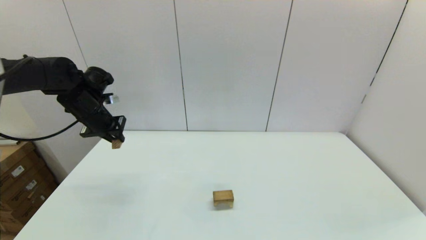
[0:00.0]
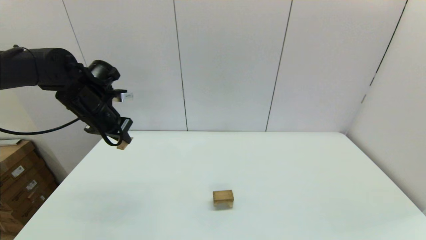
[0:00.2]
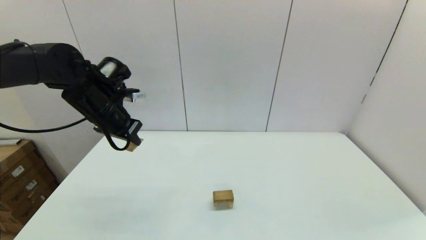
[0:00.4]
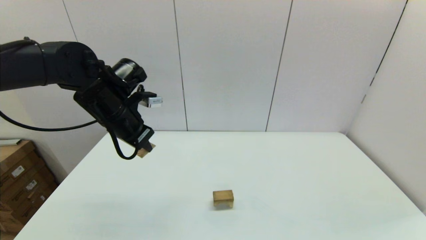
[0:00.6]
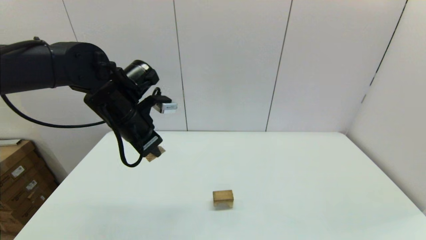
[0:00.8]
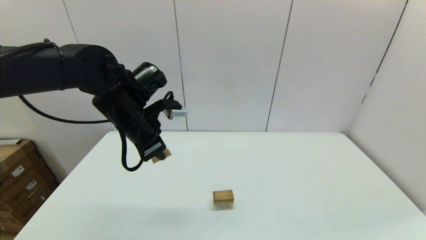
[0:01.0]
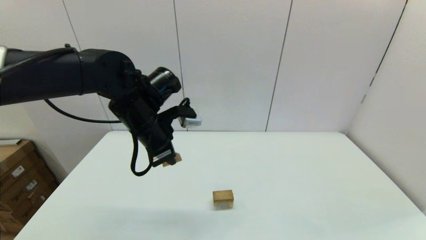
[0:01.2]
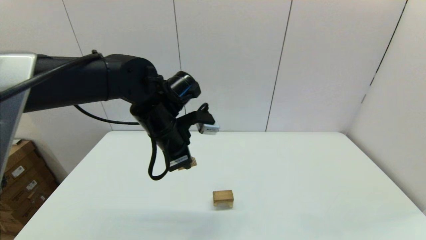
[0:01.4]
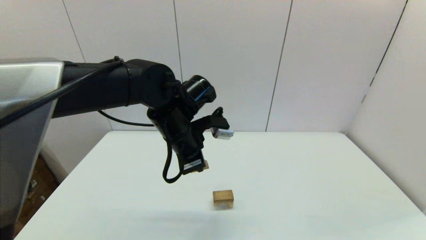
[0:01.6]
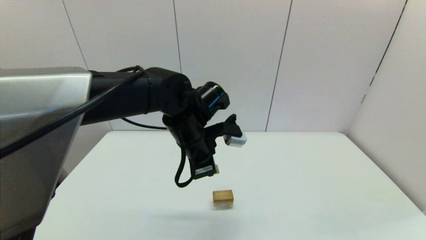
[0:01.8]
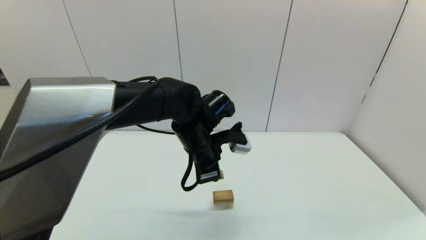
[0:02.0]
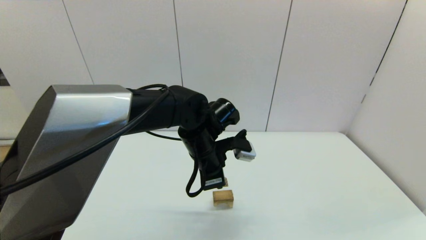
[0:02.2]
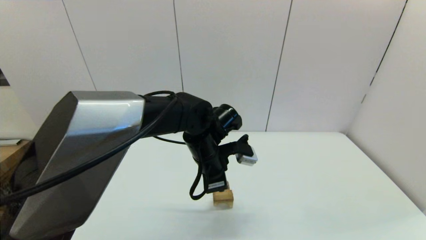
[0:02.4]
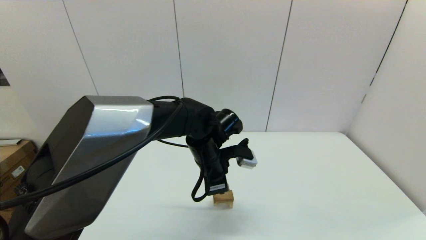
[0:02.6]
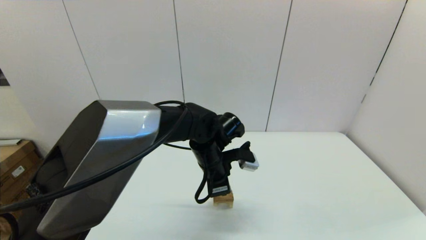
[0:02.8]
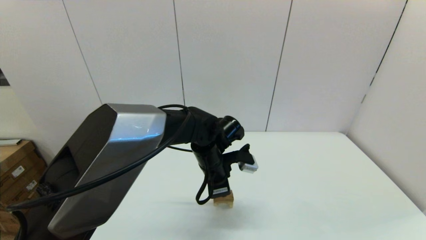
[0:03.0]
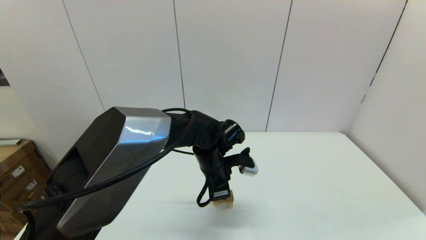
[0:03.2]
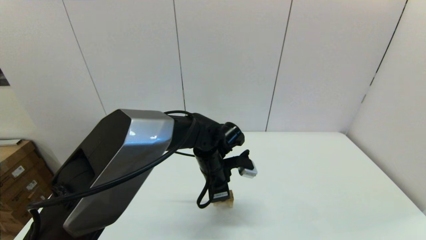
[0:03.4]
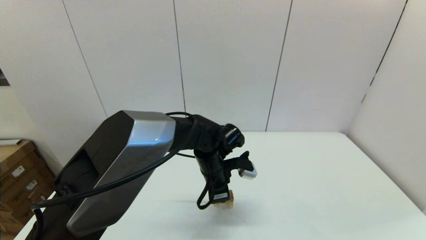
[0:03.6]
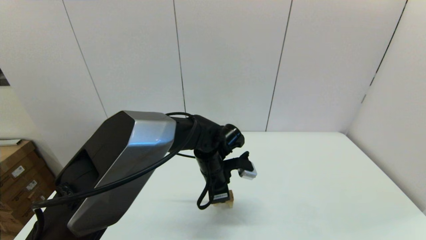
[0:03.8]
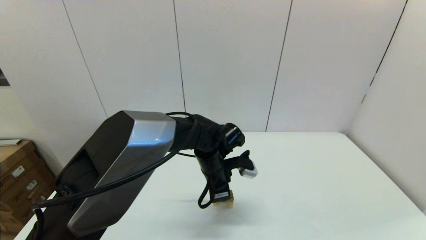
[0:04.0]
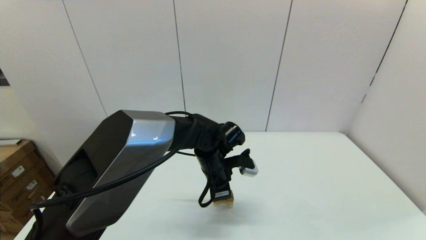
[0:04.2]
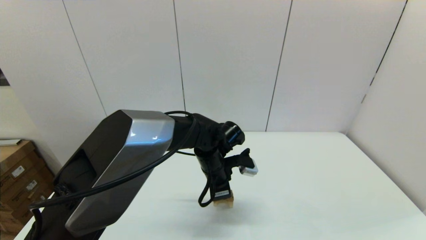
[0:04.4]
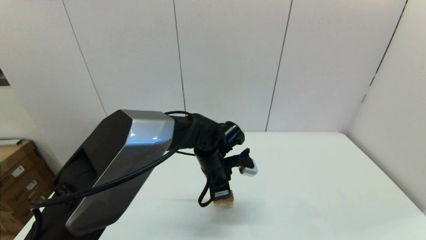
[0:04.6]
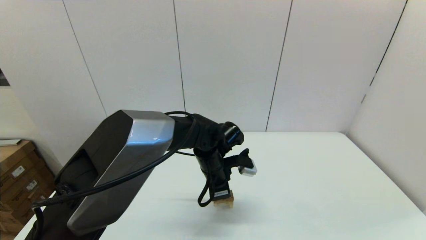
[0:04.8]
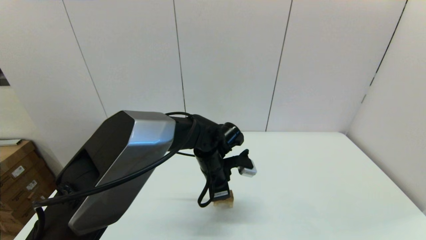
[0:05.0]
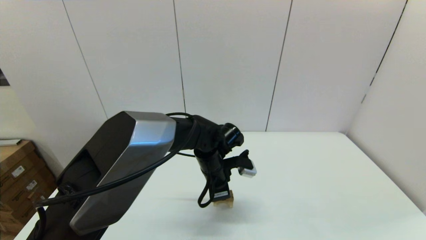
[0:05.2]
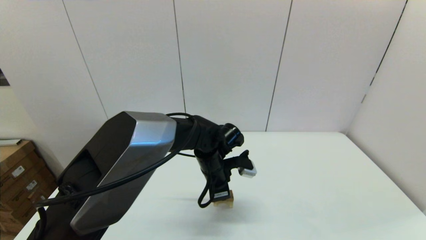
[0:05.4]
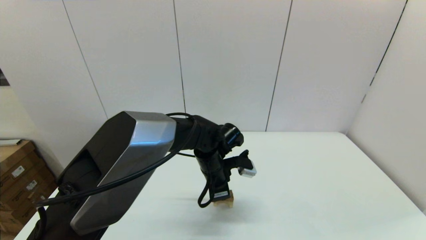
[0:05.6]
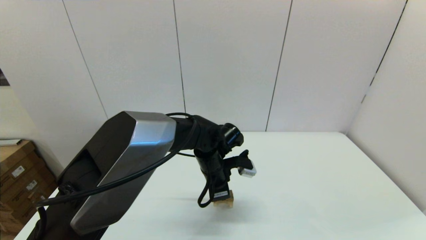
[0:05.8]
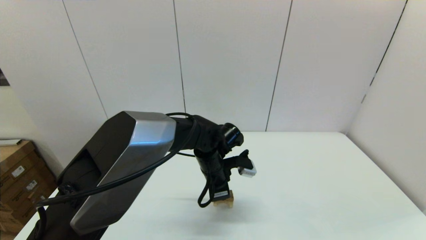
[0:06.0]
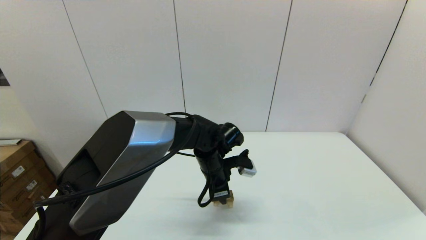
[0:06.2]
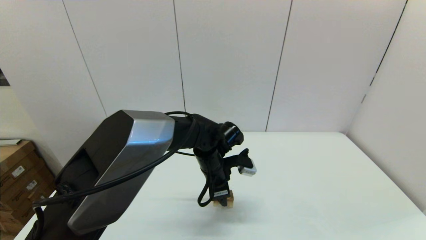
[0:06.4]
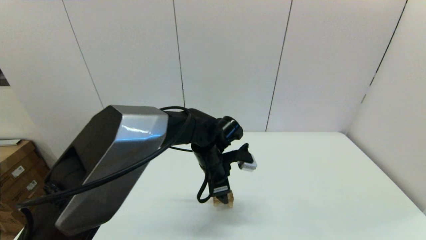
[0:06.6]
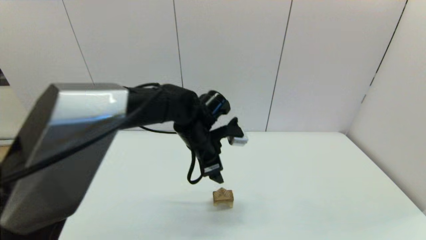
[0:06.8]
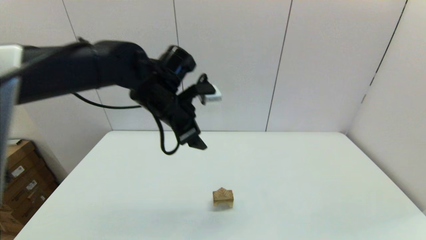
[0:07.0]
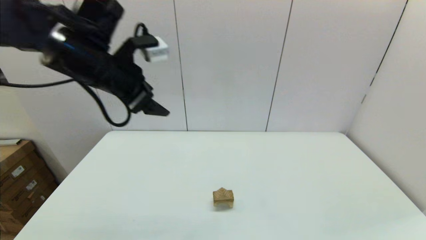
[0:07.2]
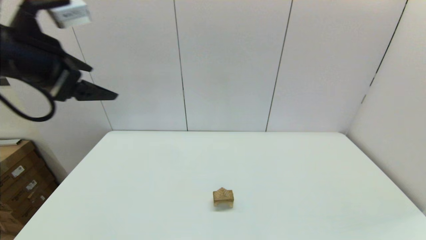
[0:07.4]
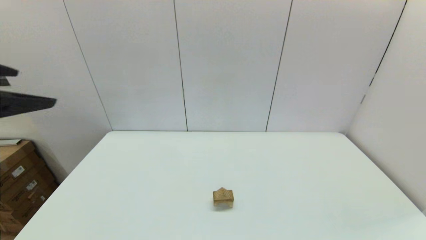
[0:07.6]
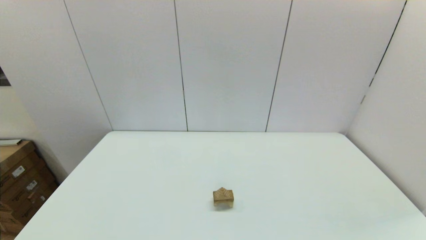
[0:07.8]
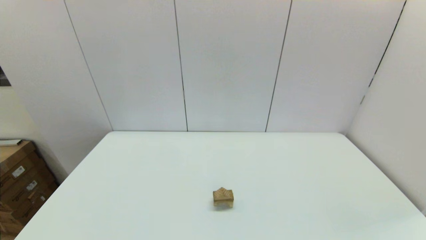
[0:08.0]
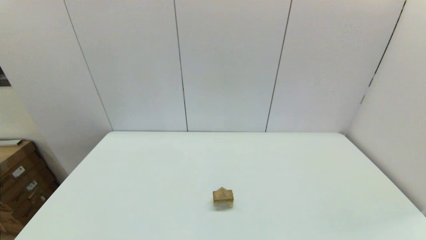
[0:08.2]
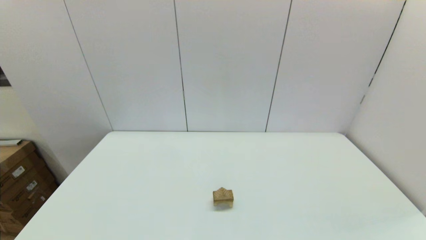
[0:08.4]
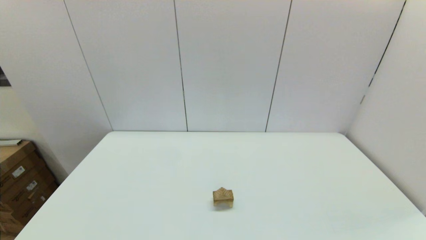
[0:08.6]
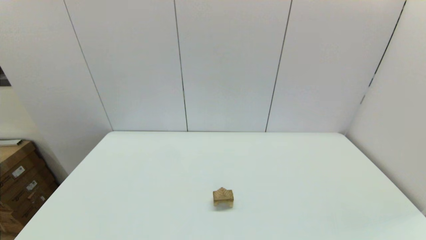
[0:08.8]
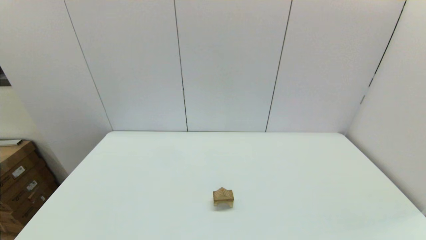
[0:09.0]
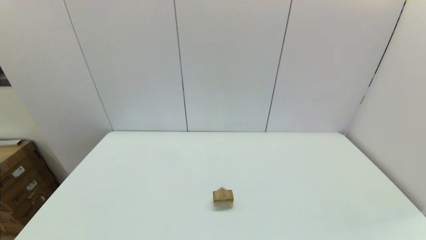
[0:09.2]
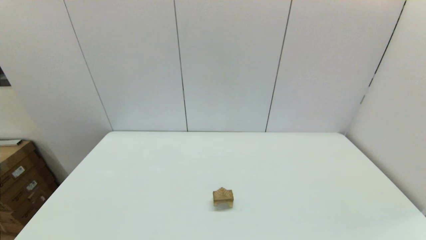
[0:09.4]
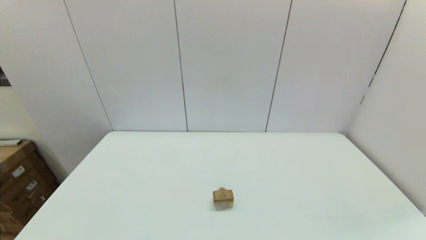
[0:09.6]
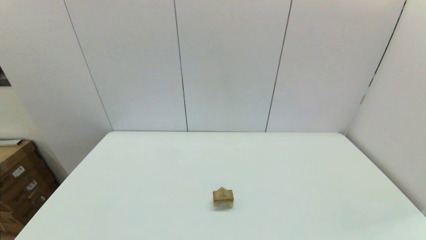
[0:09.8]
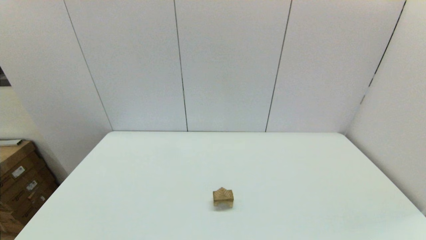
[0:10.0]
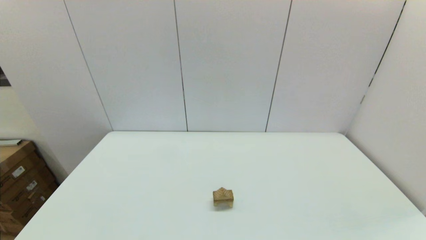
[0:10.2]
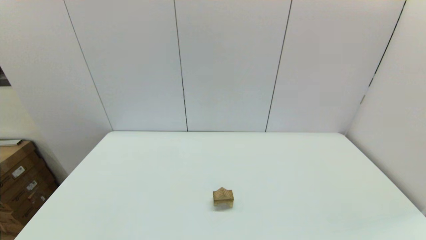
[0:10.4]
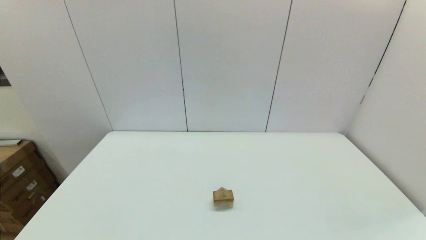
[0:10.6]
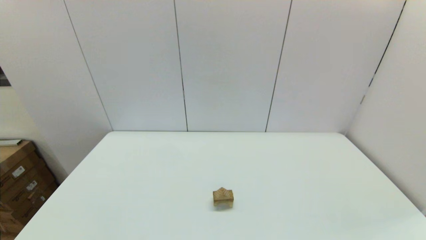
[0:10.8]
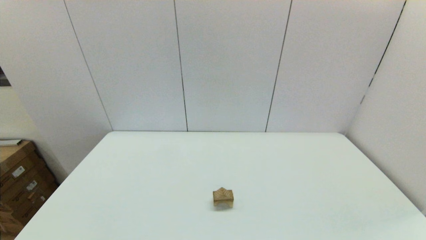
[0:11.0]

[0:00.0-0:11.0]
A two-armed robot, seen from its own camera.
Task of the whole recording: place the arched building blocks in the center of the table, set up the rectangular building blocks, and then set up the triangular building blocks.
0:00.0 to 0:01.6: The left gripper heads to the right, covering approximately 25 cm.
0:01.6 to 0:03.2: The left gripper heads downward and to the right, covering roughly 15 cm.
0:03.2 to 0:04.8: Neither gripper changes place.
0:04.8 to 0:06.2: The left gripper opens its fingers.
0:06.2 to 0:07.8: The left gripper travels to the left, backward and upward by roughly 50 cm, and opens its fingers.

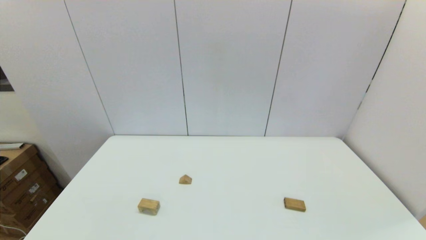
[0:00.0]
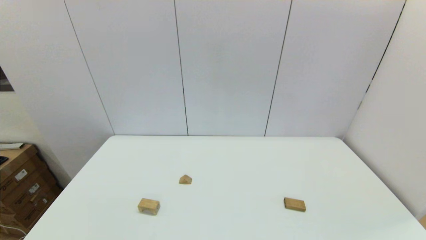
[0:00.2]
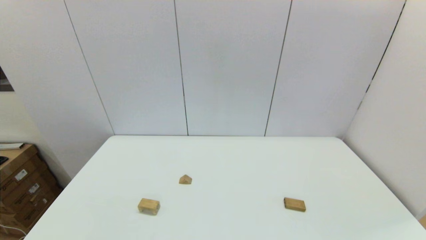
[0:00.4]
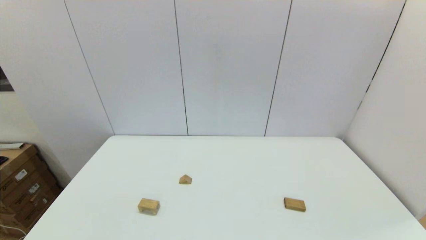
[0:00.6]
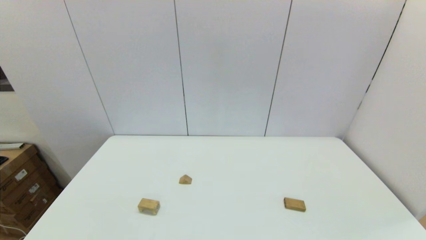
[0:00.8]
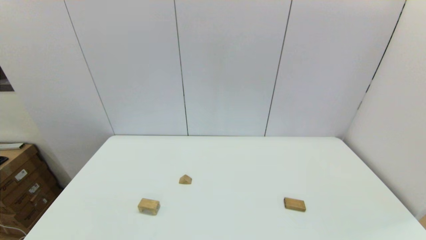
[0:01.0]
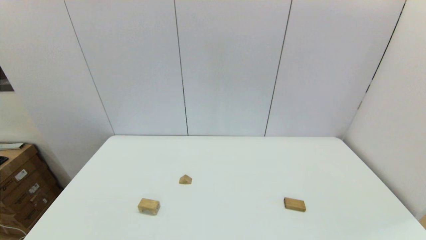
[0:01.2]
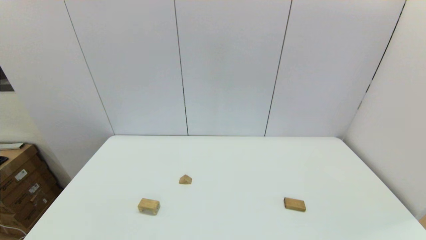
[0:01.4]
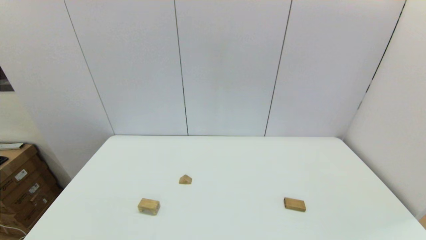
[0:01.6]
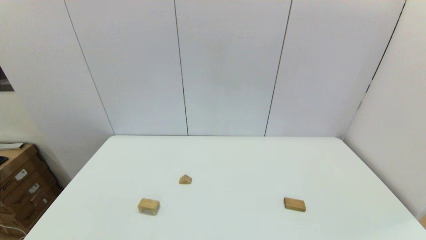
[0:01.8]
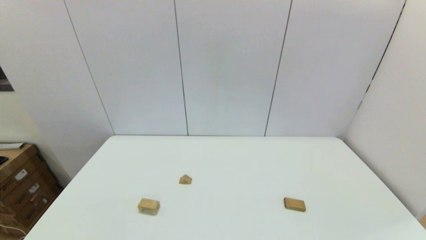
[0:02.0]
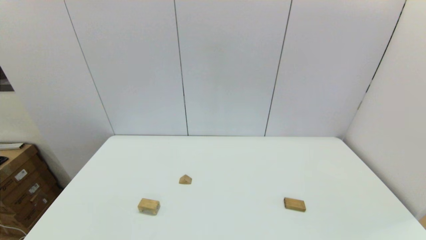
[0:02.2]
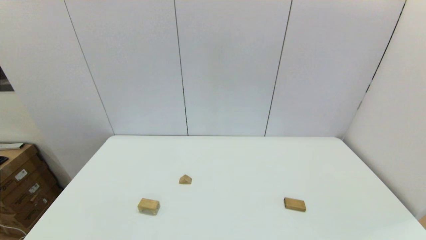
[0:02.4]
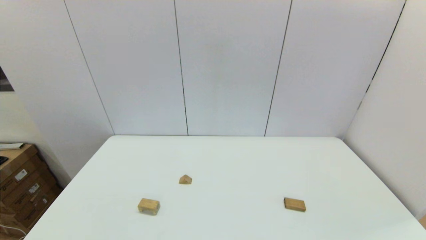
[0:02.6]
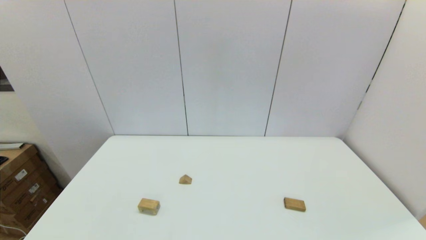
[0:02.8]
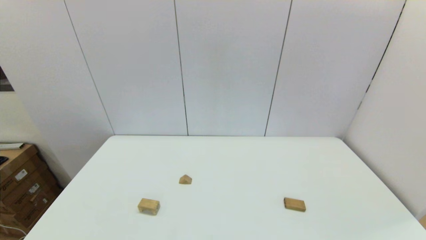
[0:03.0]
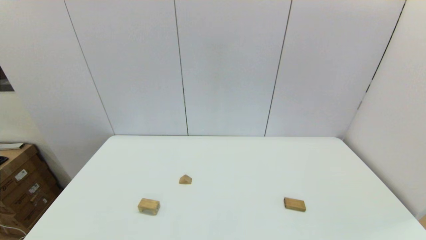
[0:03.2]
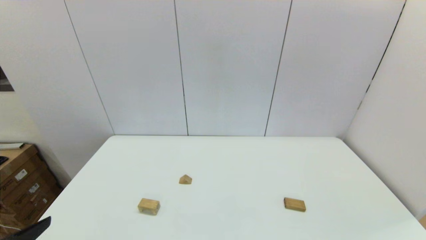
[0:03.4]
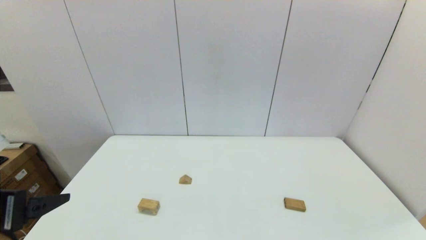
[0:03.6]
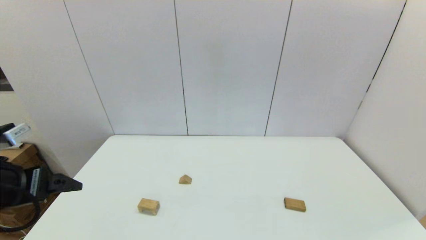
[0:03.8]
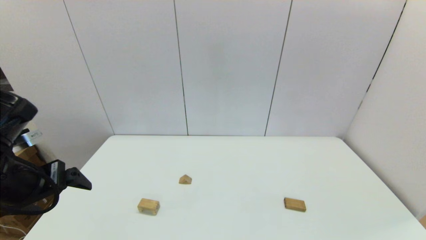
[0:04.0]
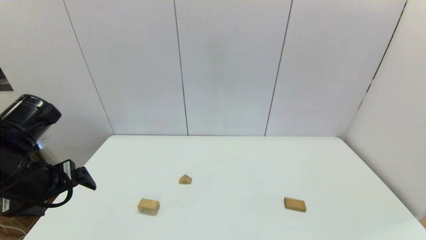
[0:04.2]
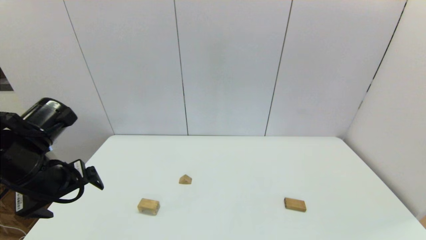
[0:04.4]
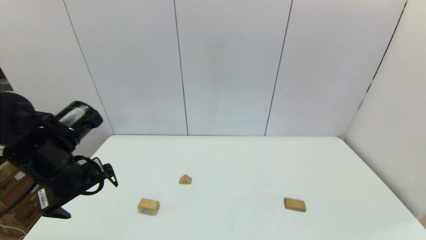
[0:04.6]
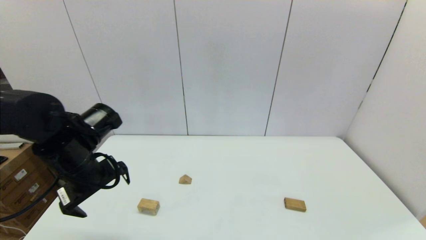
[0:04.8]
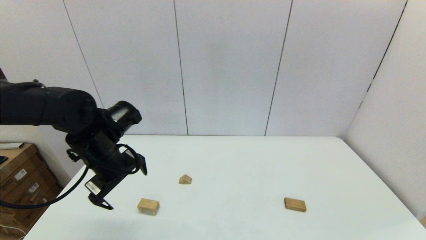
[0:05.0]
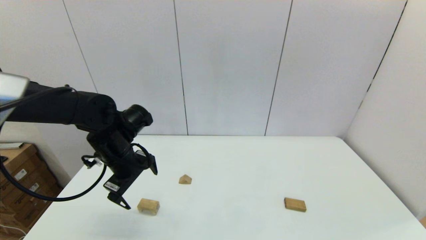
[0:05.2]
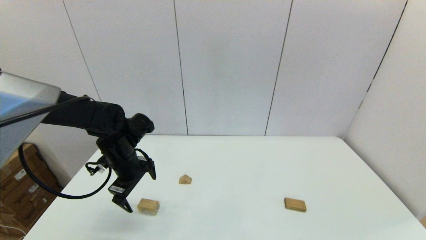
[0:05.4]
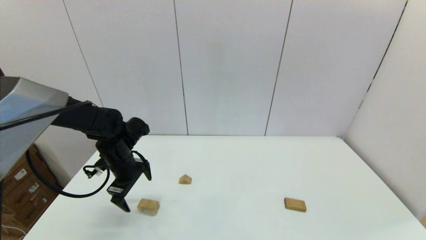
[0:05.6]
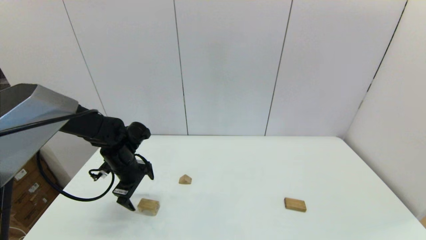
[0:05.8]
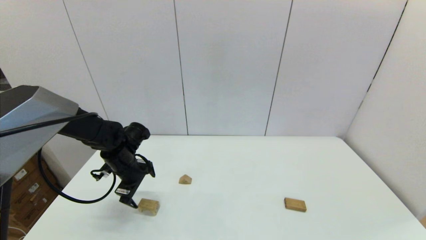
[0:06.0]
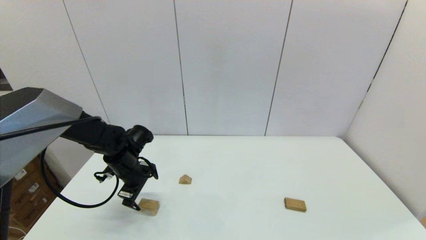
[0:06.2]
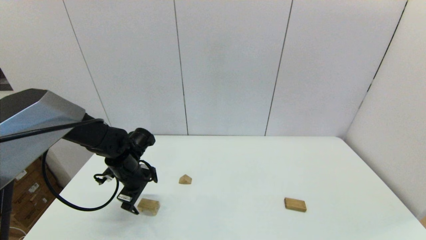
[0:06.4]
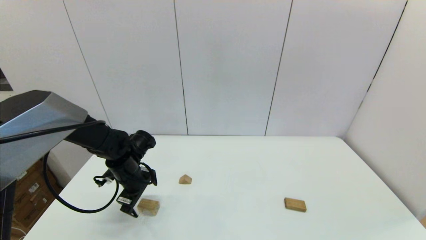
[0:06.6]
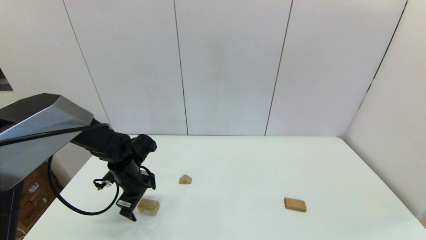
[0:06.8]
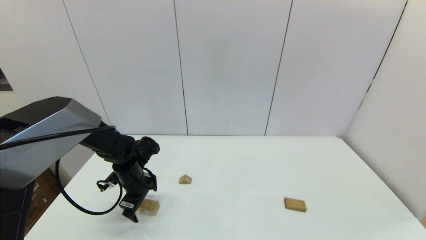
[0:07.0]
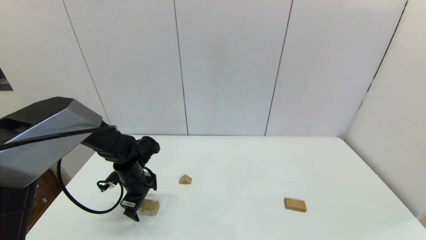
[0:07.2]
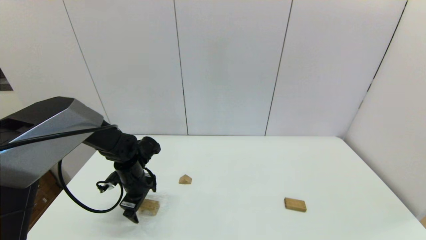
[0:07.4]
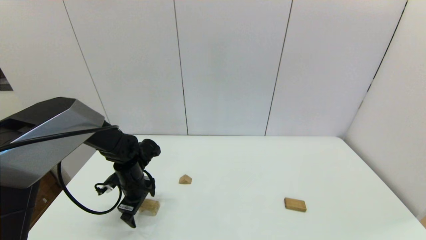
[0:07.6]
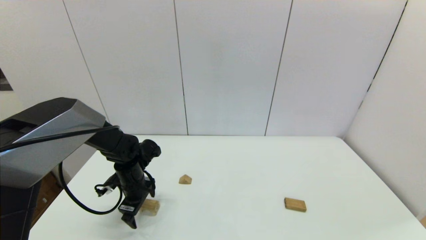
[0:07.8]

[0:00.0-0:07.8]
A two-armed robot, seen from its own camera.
Task of the whole recording: place the arched building blocks in the center of the table, set up the rectangular building blocks, and then set up the triangular building blocks.
0:00.0 to 0:01.6: Neither gripper changes place.
0:03.2 to 0:04.6: The left gripper shifts some 25 cm forward.
0:04.6 to 0:06.2: The left gripper is displaced downward and forward by about 15 cm.
0:06.2 to 0:07.8: The grippers move only a little.
